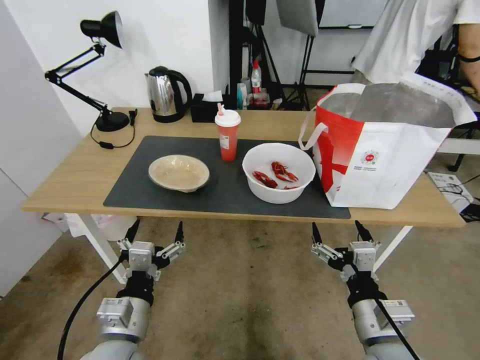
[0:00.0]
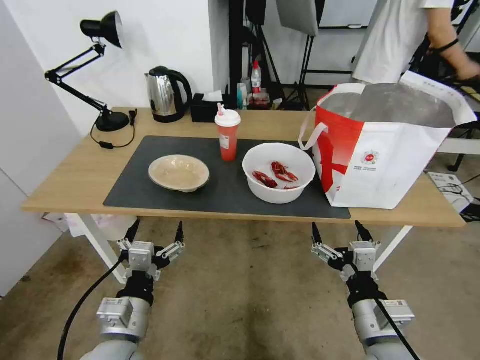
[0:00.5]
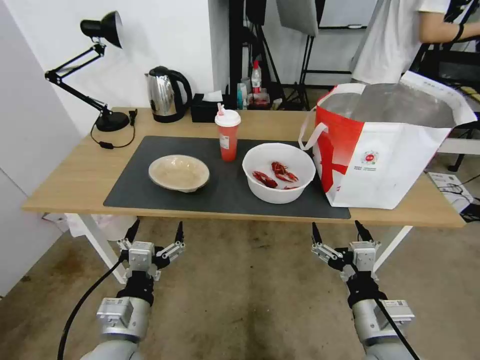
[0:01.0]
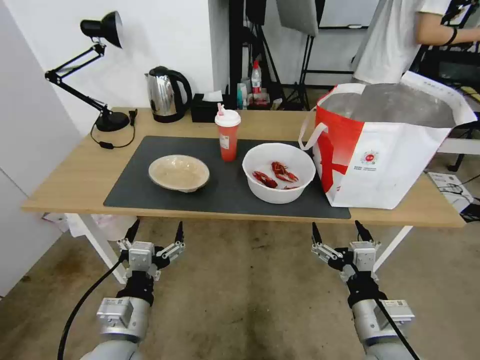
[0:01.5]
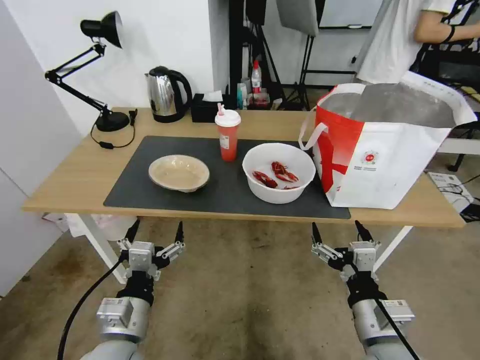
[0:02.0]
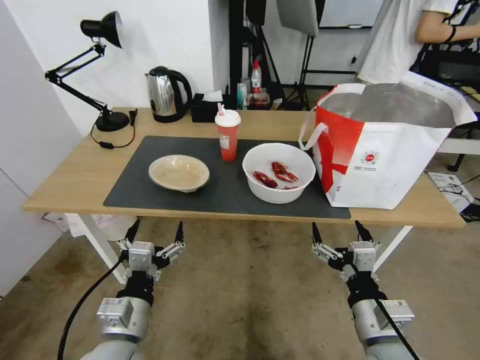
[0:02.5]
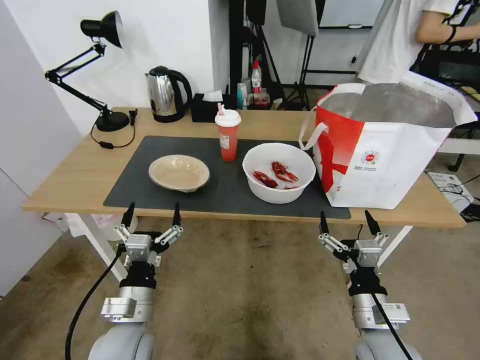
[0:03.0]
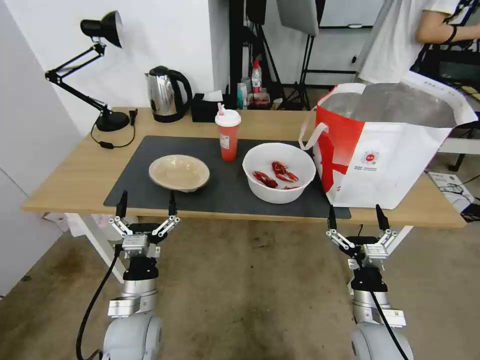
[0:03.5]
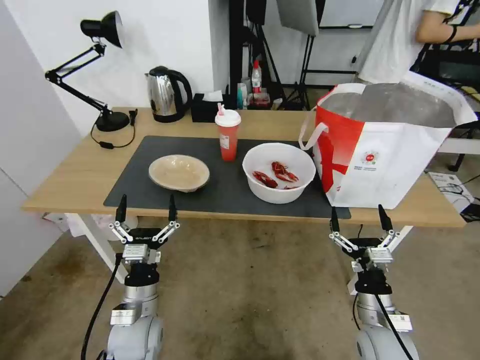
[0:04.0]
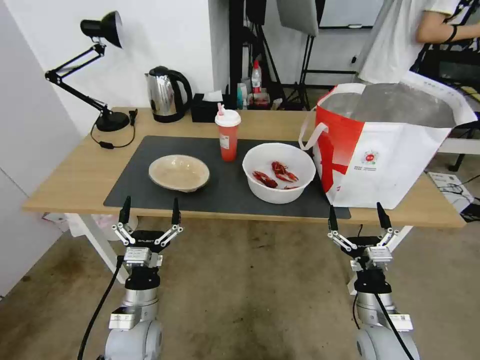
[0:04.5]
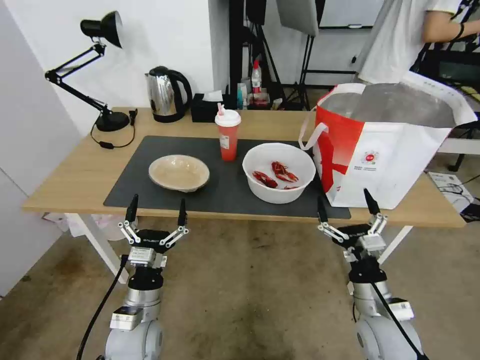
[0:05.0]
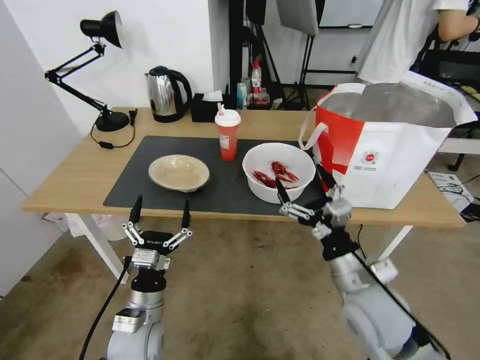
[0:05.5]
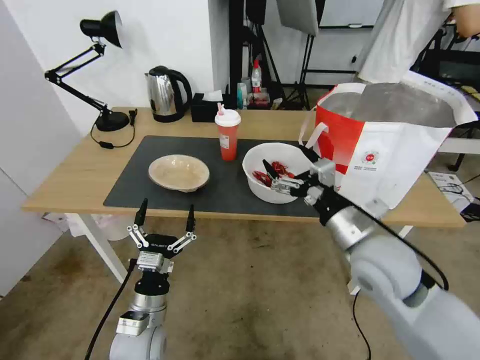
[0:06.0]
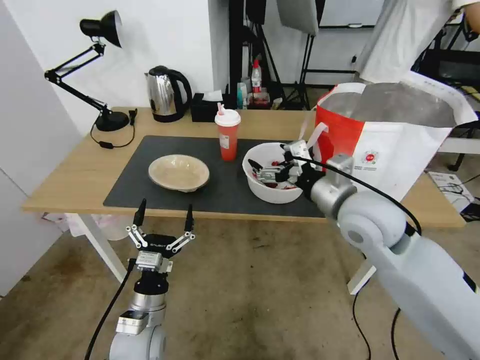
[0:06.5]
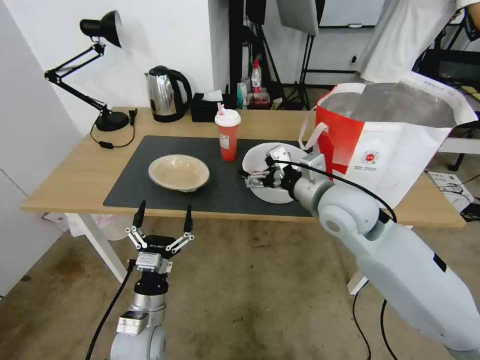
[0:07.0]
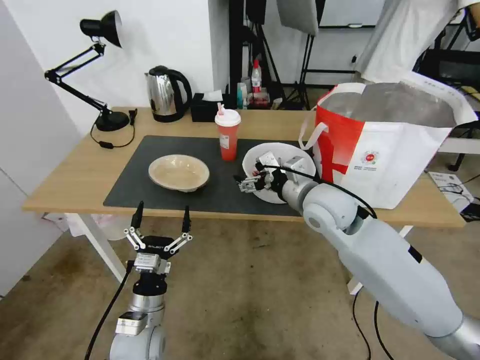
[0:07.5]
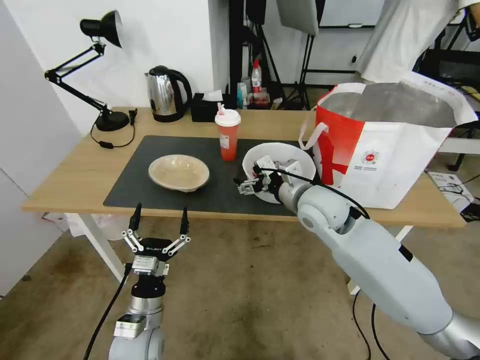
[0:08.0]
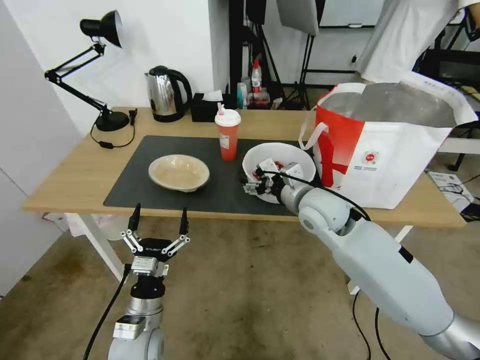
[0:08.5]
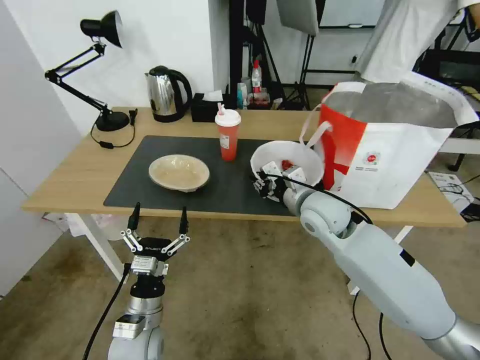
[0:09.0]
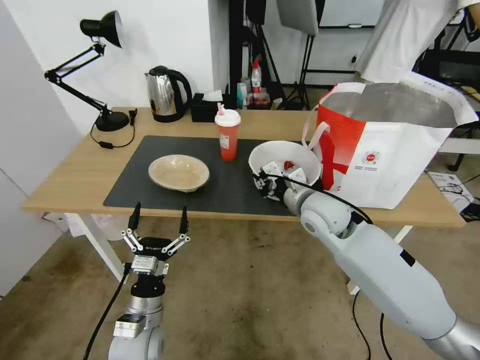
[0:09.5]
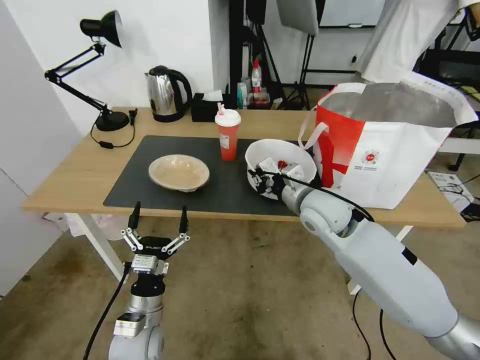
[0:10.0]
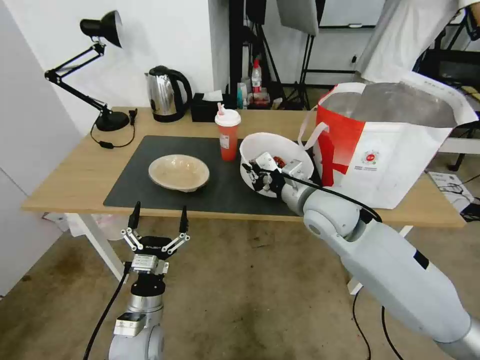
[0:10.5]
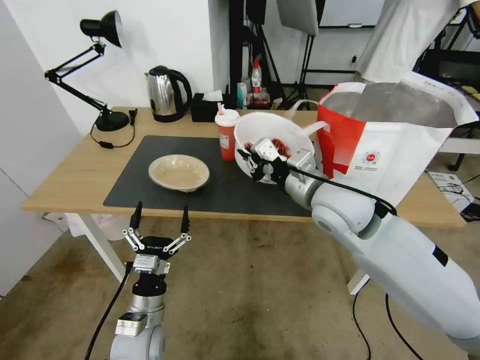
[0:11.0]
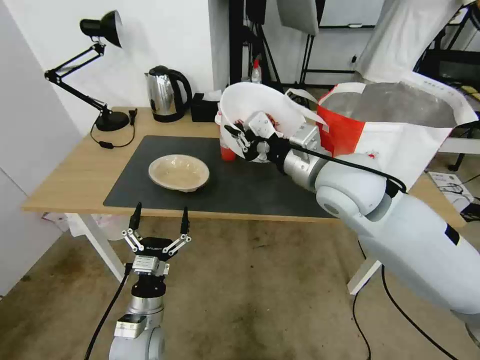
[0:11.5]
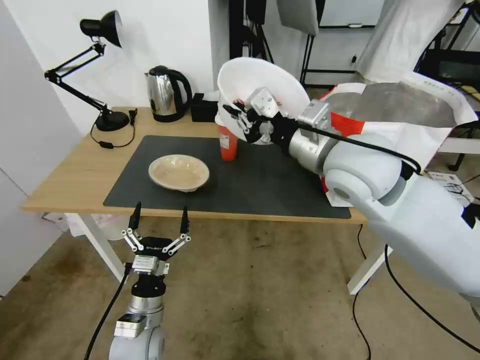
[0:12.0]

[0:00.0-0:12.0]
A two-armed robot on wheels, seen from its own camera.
Task of the whole recording: Pick up the trash from the table and place it into the takeout bag.
0:02.0 to 0:04.0: The grippers both shift downward and forward by about 10 cm.
0:04.0 to 0:06.0: The right gripper shifts approximately 20 cm upward and forward.
0:06.0 to 0:08.0: The right gripper is displaced forward and to the left by roughly 15 cm.
0:08.0 to 0:10.0: The right gripper closes.
0:10.0 to 0:12.0: The right gripper travels upward by about 15 cm.

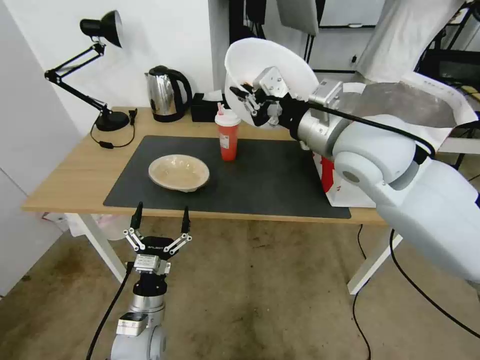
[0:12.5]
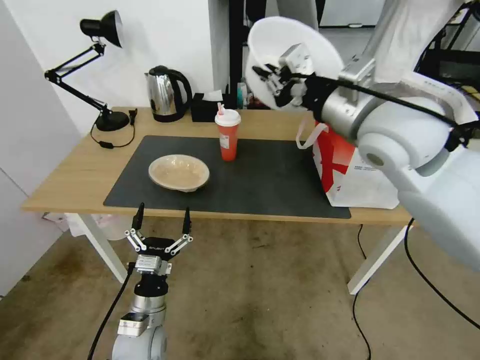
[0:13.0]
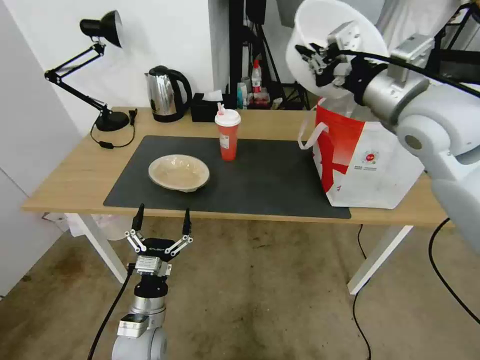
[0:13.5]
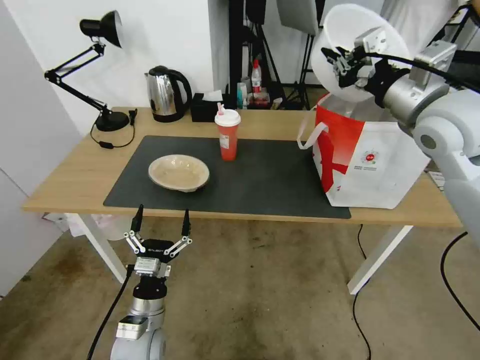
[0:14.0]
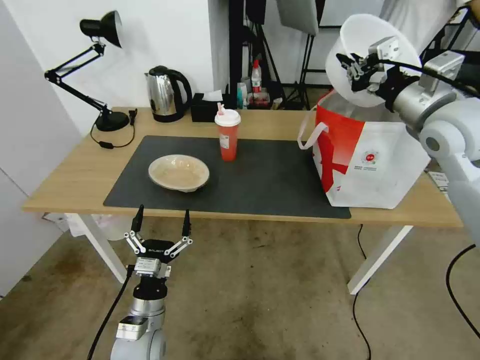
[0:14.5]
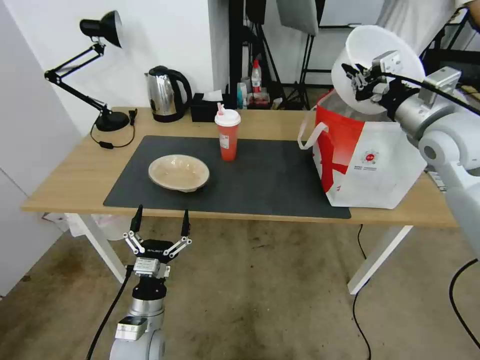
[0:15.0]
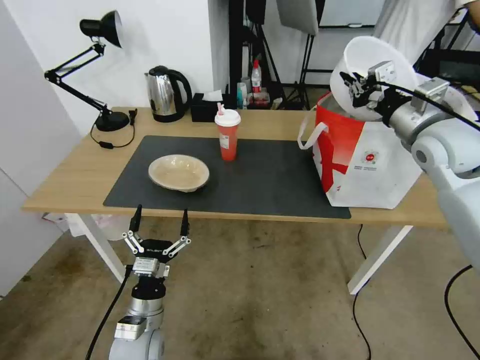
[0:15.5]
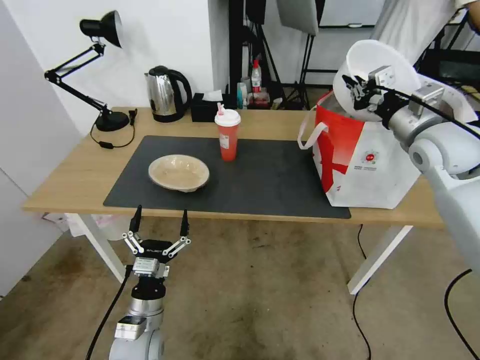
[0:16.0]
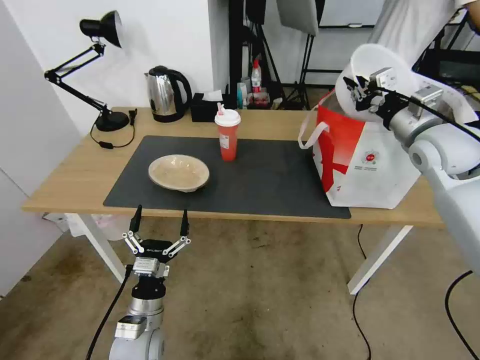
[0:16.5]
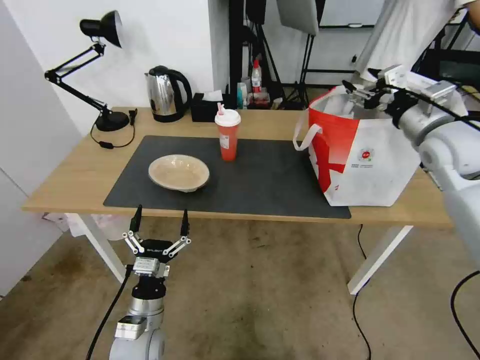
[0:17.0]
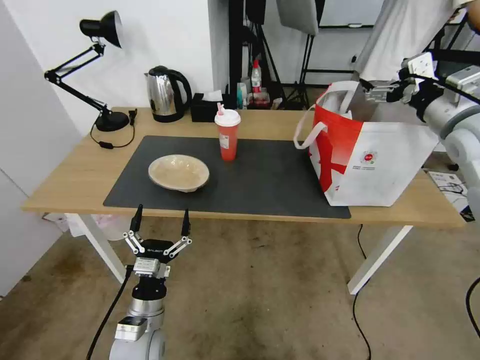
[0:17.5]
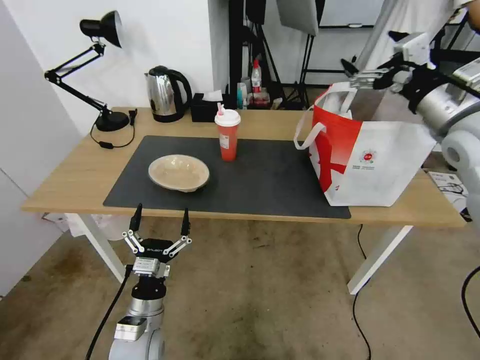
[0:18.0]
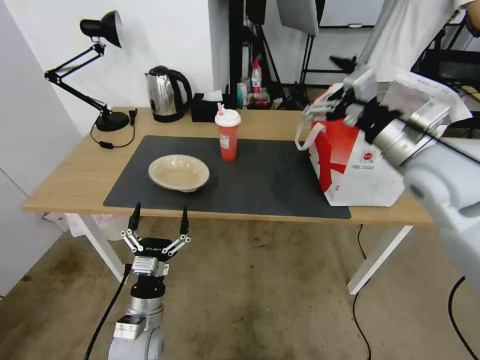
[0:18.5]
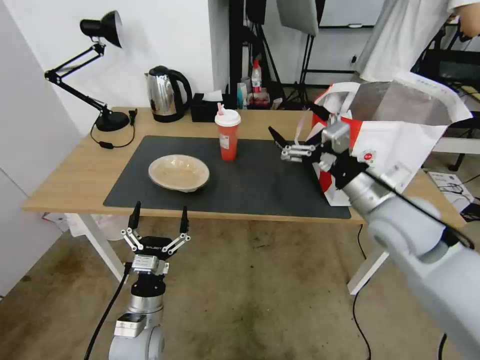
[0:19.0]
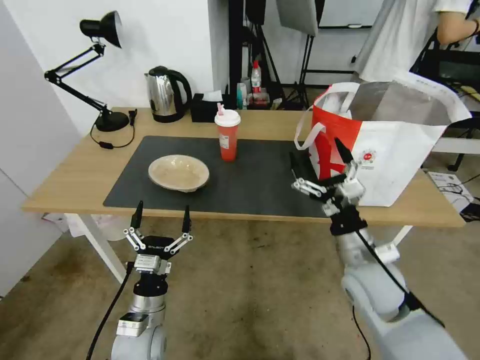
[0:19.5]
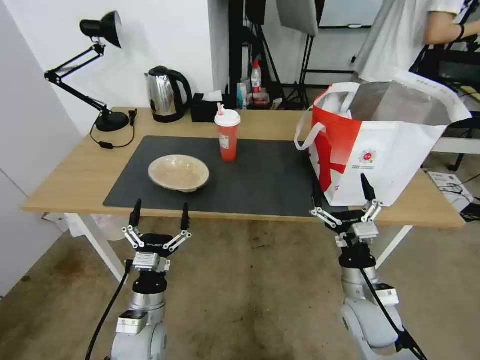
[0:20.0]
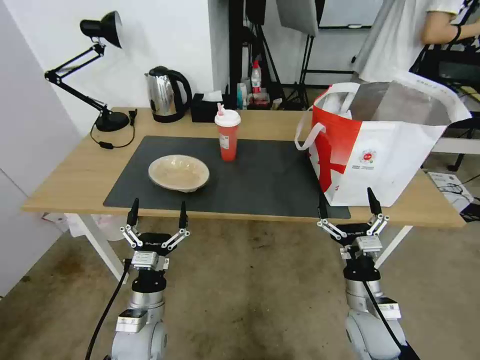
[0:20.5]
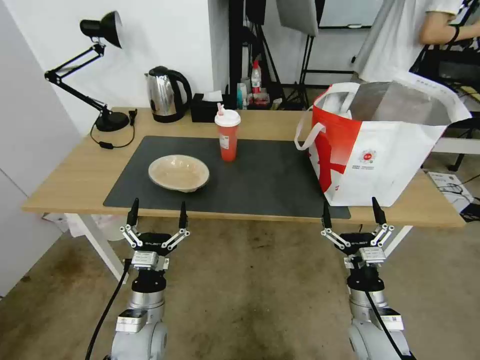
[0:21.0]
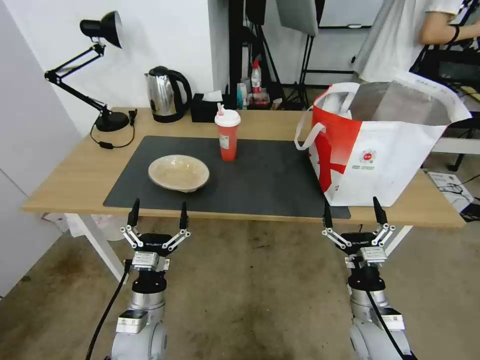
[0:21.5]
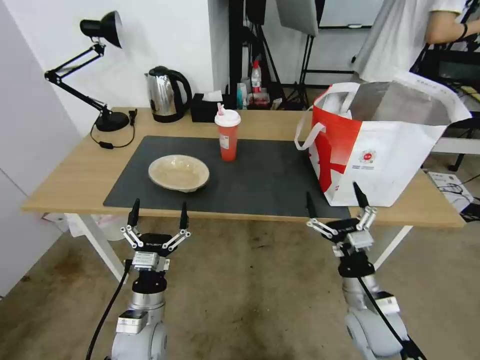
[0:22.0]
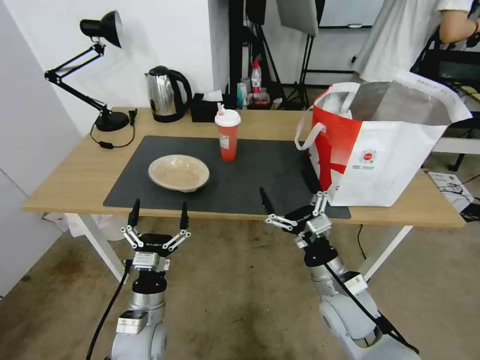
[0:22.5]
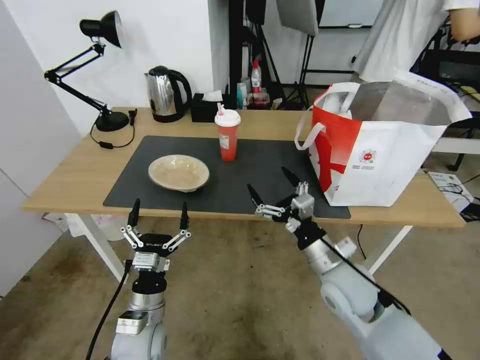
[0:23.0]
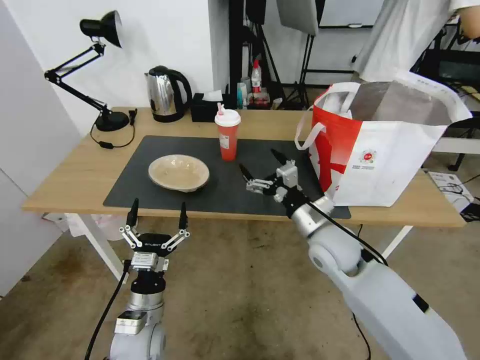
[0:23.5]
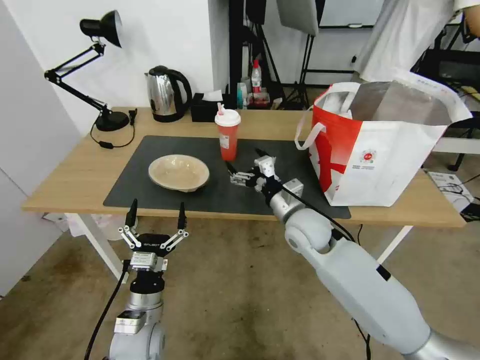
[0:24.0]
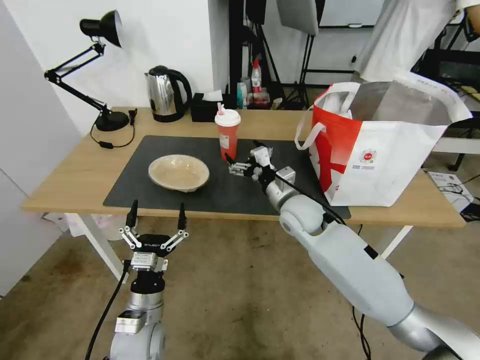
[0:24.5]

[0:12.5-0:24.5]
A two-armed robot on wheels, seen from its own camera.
Task of the whole recording: Pick up the trash from the table and place it into the takeout bag.
0:12.5 to 0:14.5: The right gripper goes approximately 15 cm to the right.
0:14.5 to 0:16.5: The right gripper moves downward, approximately 5 cm.
0:16.5 to 0:18.5: The right gripper heads backward and to the left, covering some 10 cm, and opens its fingers.
0:18.5 to 0:20.5: The right gripper travels downward and backward by approximately 35 cm.
0:20.5 to 0:22.5: The right gripper is displaced to the left by approximately 5 cm.
0:22.5 to 0:24.5: The right gripper is displaced forward by approximately 20 cm.

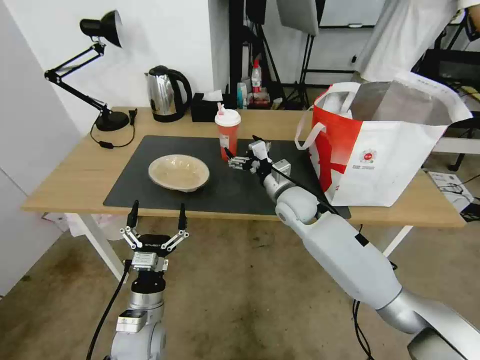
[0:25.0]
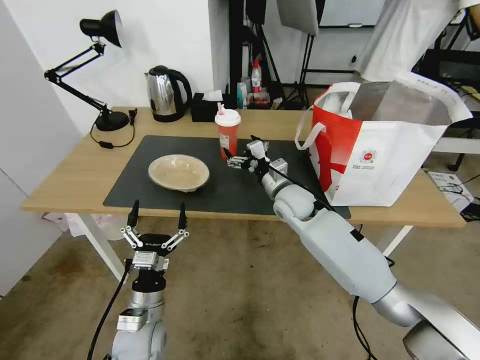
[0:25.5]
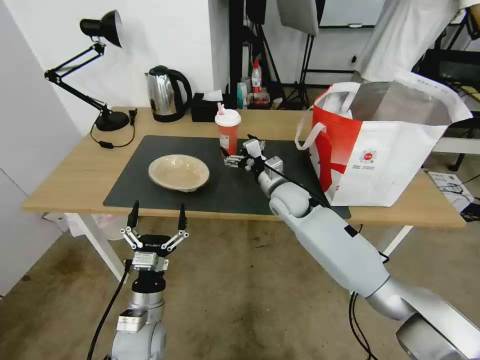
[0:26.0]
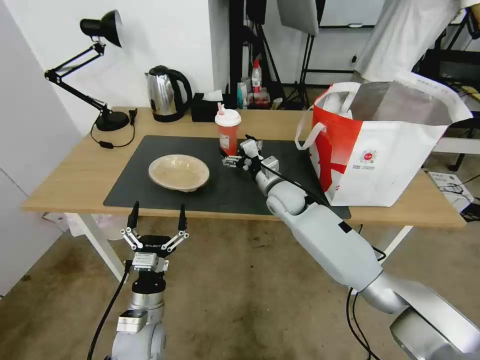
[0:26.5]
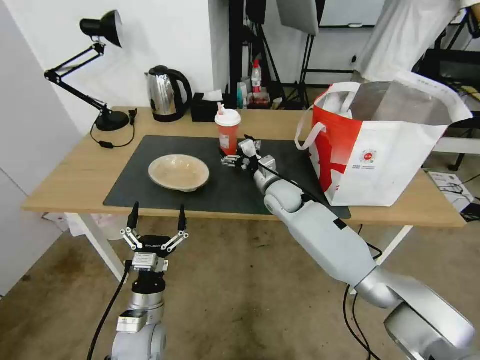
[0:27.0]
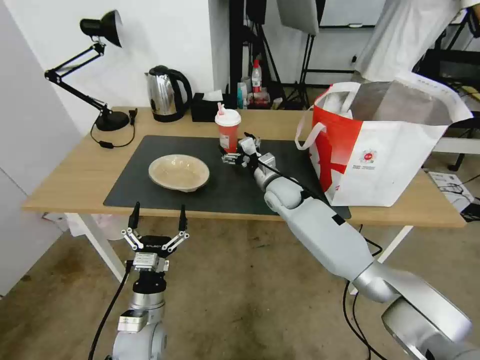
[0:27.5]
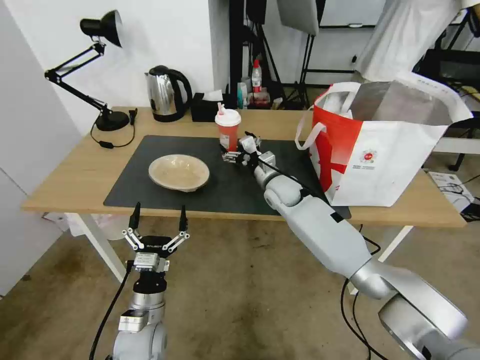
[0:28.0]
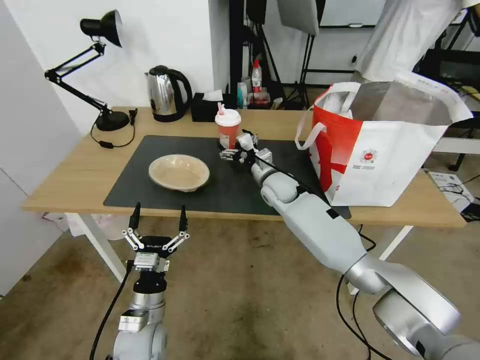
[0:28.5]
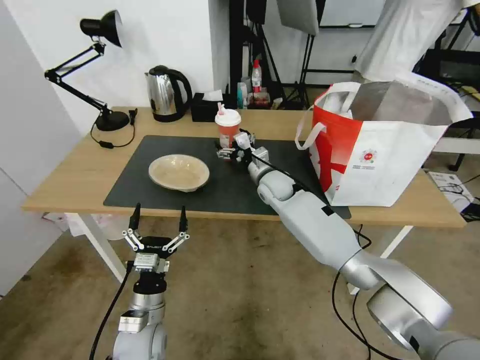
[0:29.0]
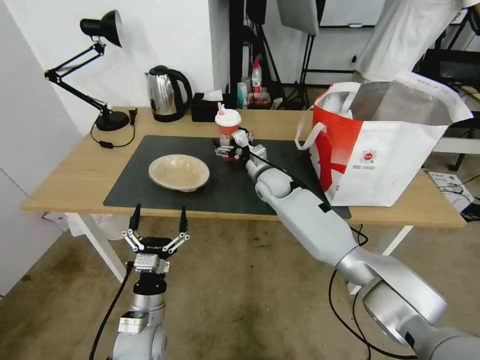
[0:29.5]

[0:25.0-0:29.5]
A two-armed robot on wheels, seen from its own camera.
Task of the whole recording: Pick up the trash from the table and place it into the takeout bag.
0:25.0 to 0:27.0: The right gripper changes place by approximately 5 cm.
0:27.0 to 0:29.5: There are only small adjustments of the grippers.
